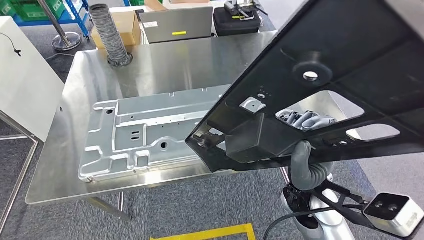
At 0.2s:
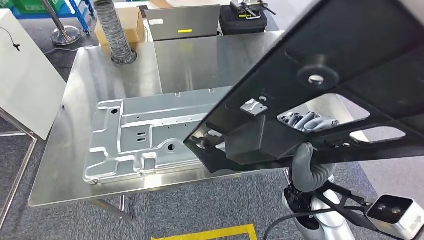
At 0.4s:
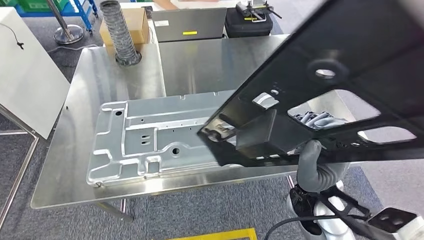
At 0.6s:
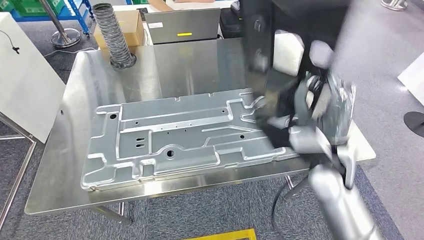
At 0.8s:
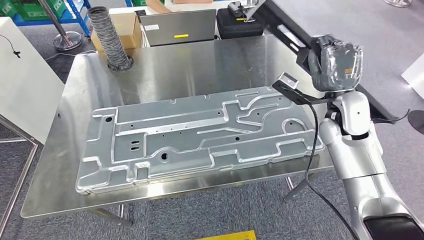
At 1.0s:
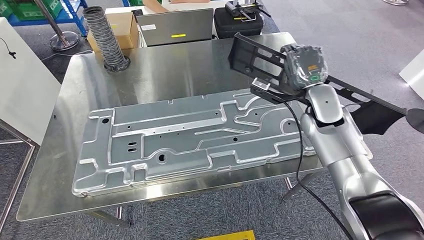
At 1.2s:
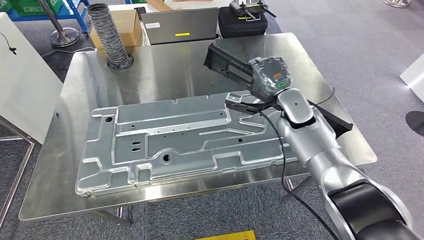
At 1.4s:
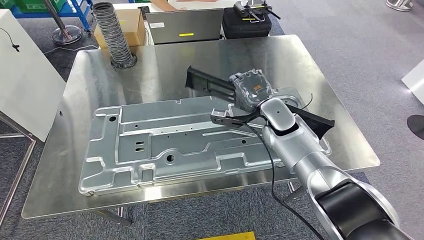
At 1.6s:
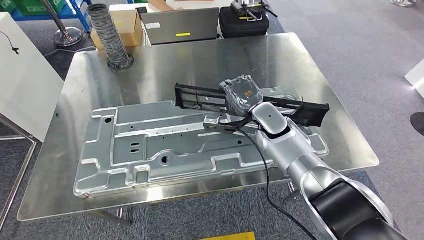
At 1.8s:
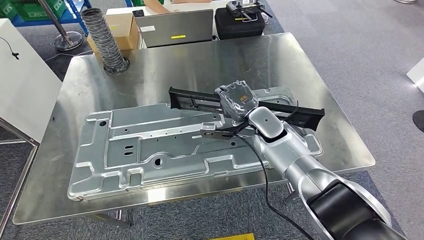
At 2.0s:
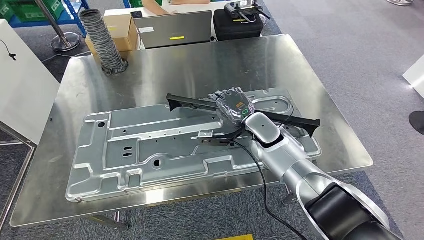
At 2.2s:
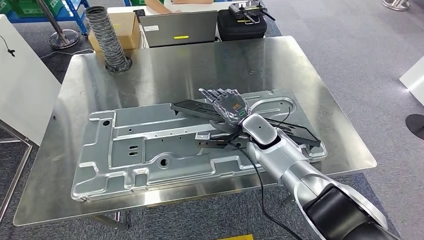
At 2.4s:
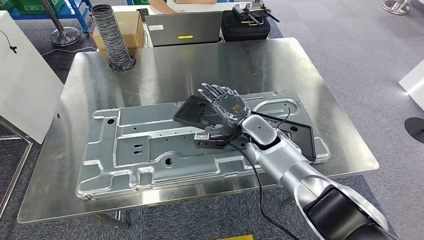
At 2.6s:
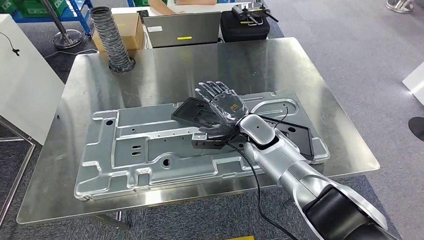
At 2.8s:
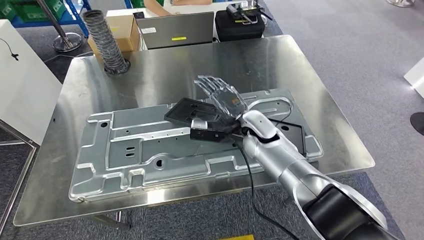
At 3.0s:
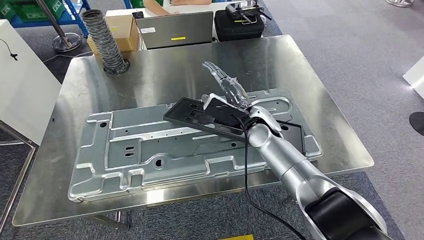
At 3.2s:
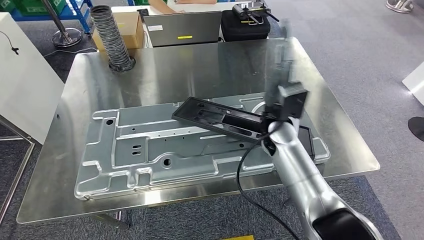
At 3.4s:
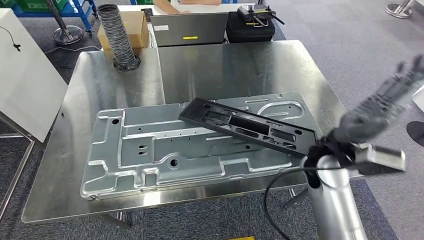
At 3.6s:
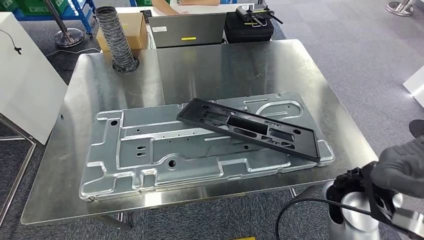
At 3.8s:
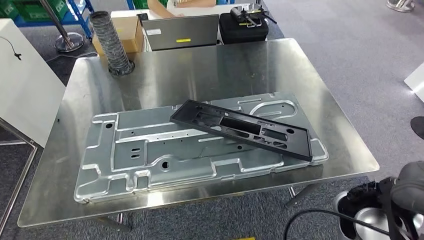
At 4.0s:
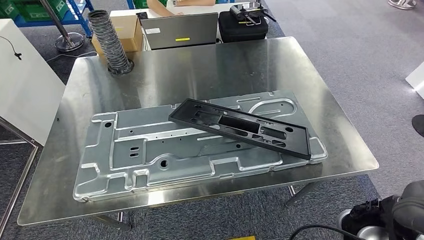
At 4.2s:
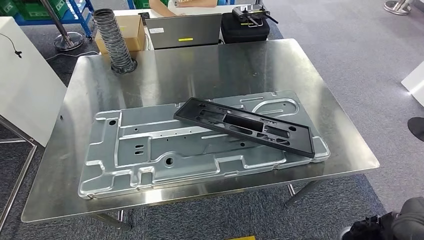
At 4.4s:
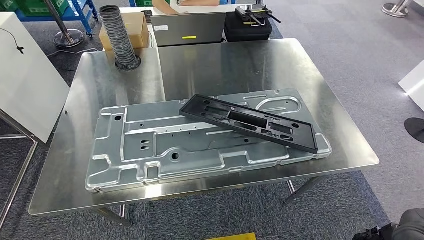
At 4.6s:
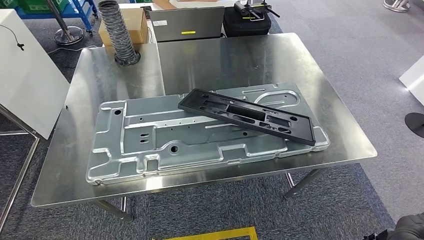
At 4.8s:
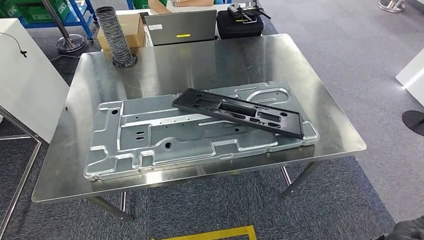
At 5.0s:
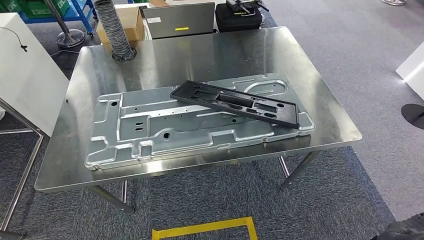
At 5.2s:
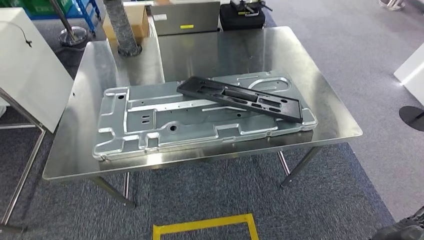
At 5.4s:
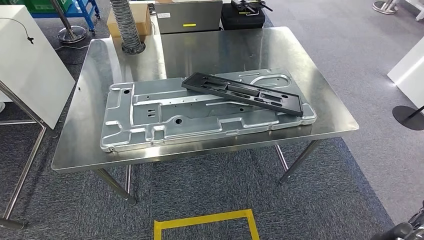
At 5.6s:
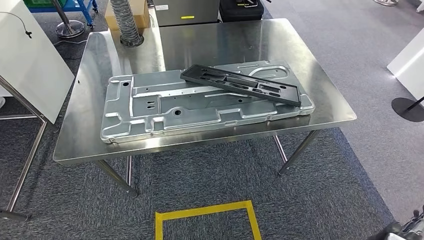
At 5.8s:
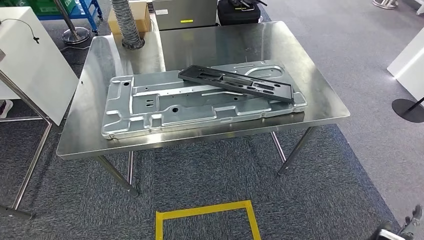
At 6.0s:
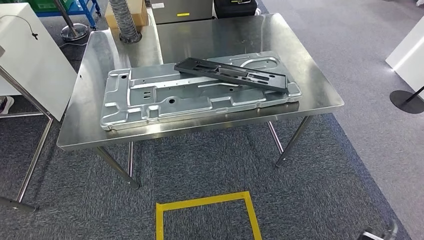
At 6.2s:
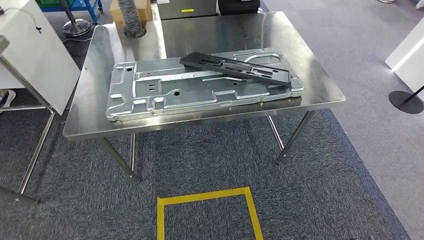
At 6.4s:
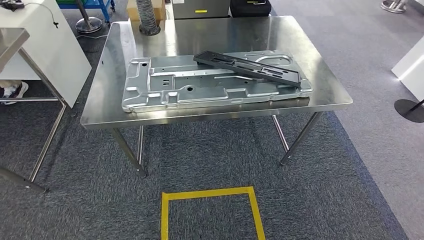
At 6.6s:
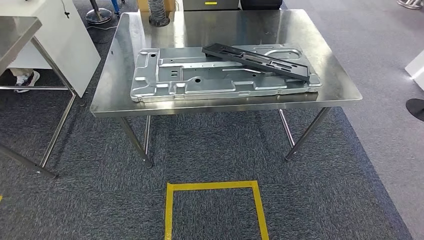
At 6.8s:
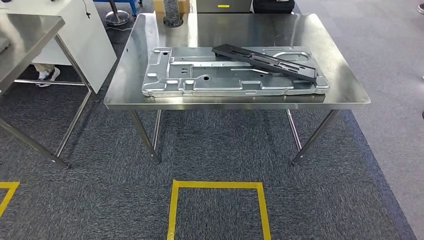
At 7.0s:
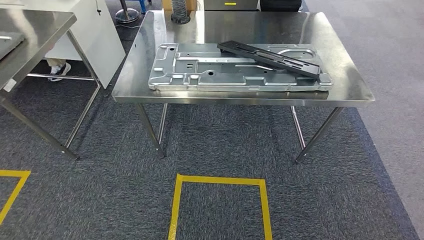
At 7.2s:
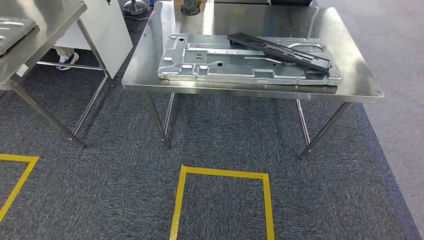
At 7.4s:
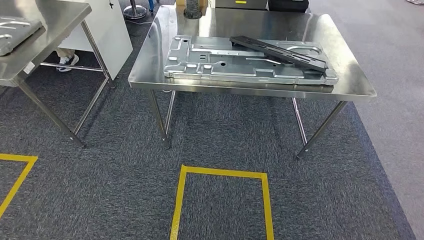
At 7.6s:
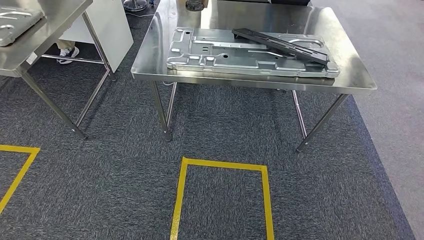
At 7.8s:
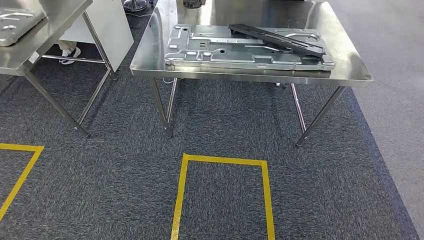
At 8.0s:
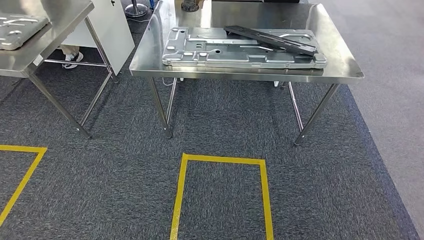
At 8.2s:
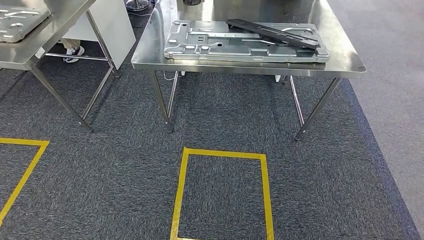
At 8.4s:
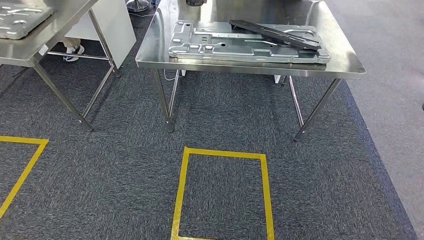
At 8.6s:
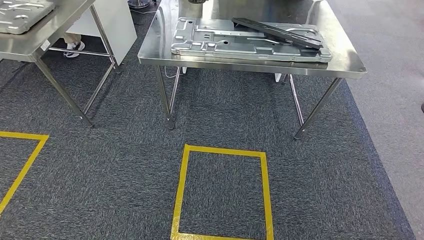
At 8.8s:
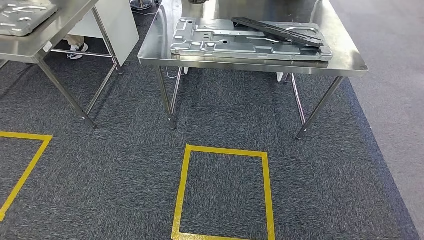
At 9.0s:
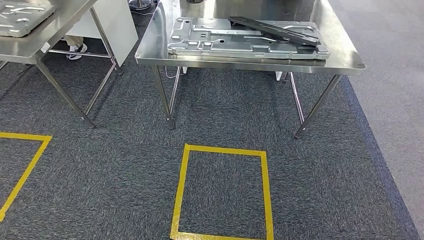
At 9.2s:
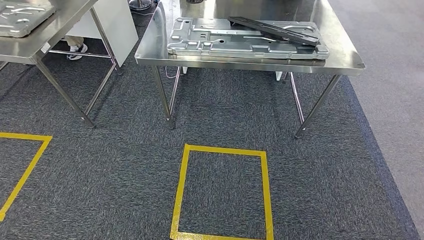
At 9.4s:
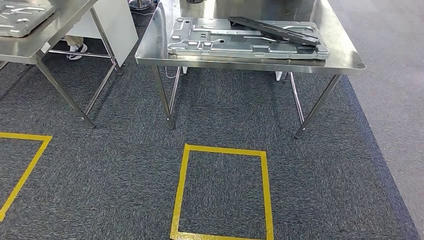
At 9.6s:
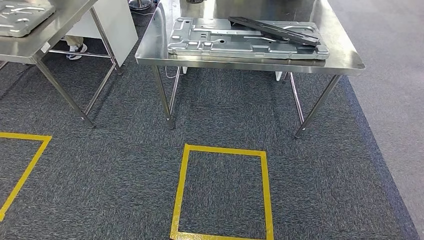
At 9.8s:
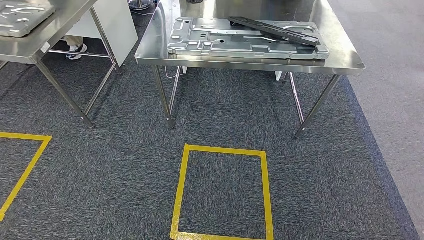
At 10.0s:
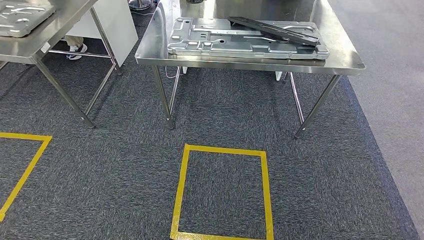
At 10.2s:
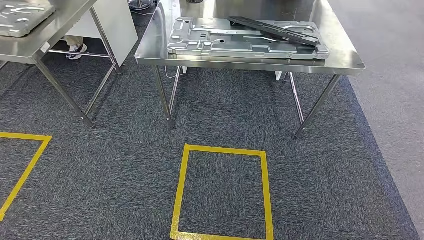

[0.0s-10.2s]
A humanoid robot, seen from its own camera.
Step, 0.0s to 5.4s: Insert the large material into the corresponding slot on the workbench.
Step, 5.6s to 10.0s: Return to the initial position at the shelf.
8.8s to 10.2s: There are only small adjustments of the hands.

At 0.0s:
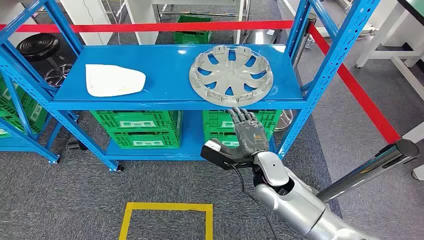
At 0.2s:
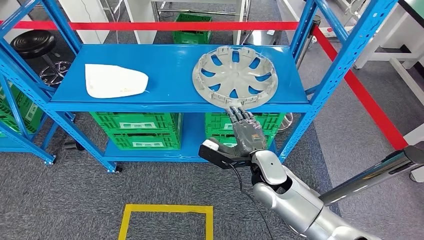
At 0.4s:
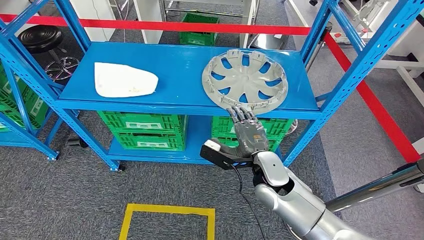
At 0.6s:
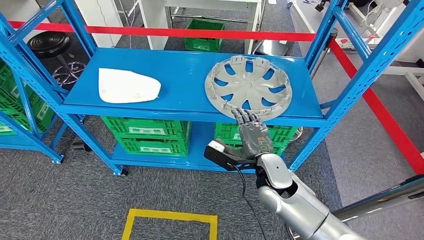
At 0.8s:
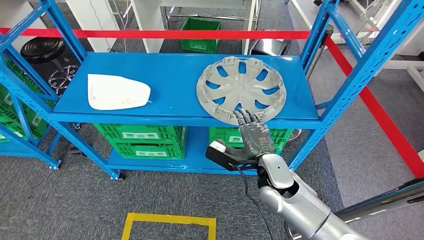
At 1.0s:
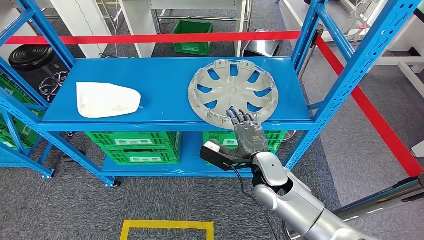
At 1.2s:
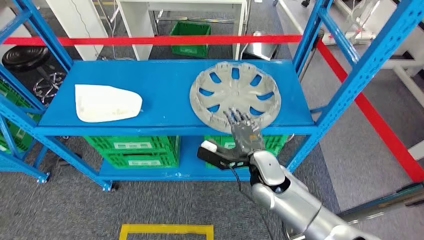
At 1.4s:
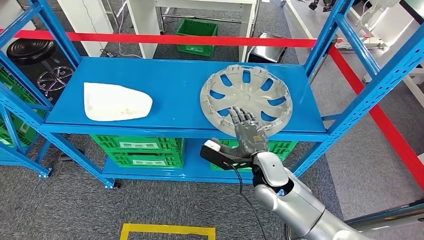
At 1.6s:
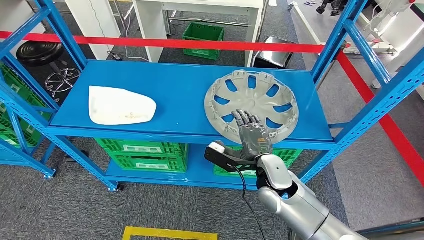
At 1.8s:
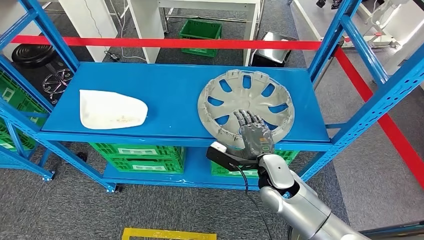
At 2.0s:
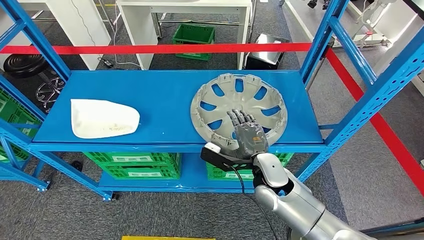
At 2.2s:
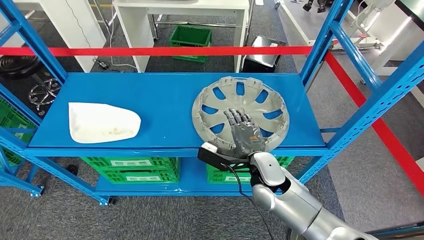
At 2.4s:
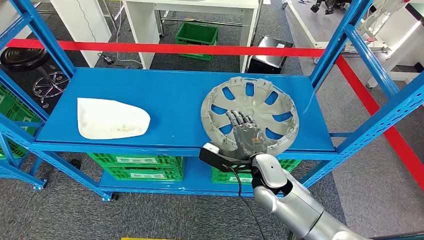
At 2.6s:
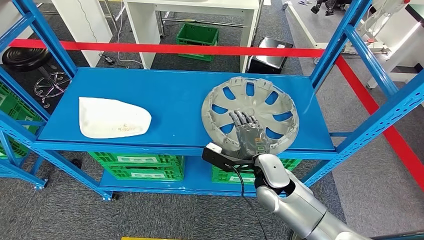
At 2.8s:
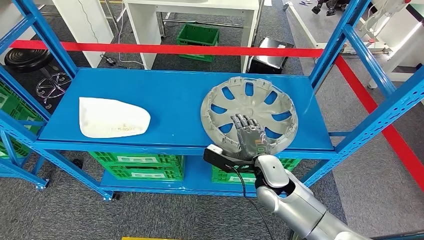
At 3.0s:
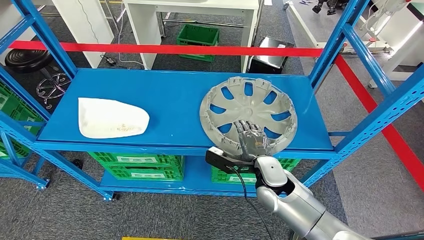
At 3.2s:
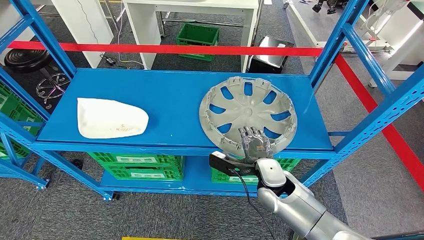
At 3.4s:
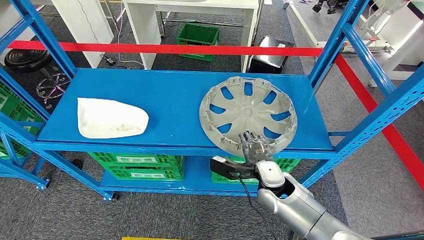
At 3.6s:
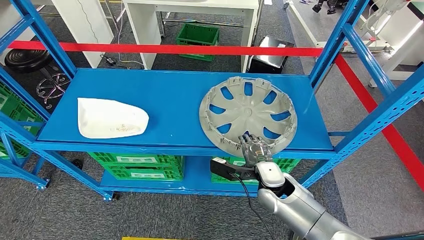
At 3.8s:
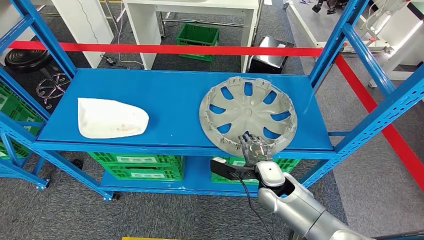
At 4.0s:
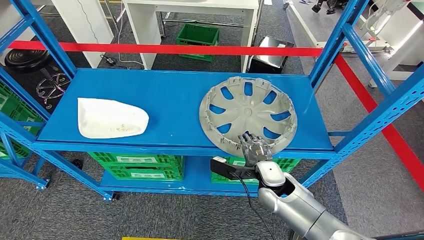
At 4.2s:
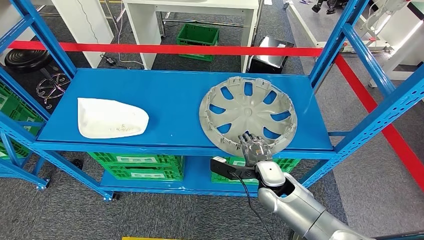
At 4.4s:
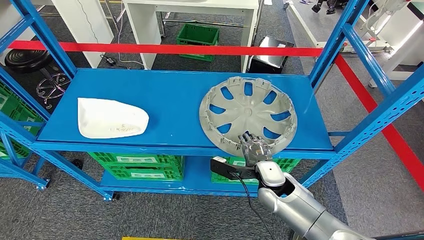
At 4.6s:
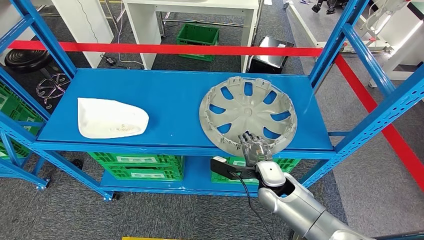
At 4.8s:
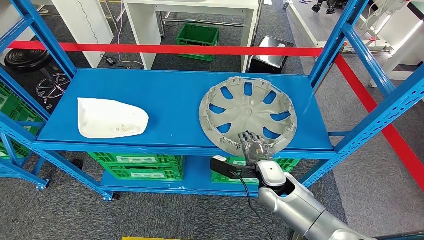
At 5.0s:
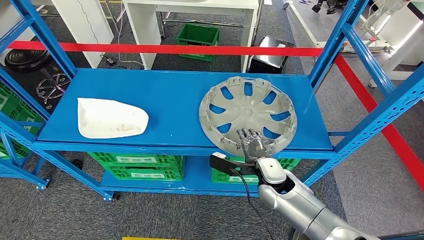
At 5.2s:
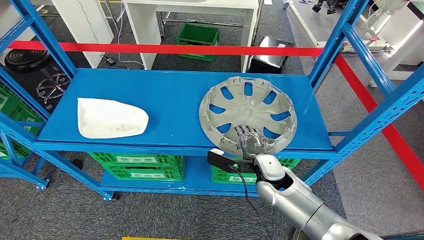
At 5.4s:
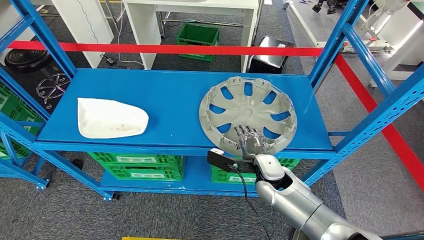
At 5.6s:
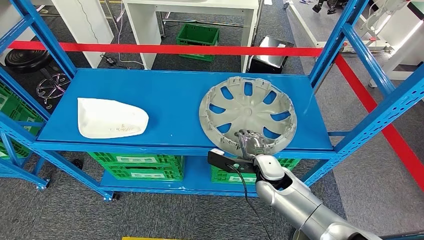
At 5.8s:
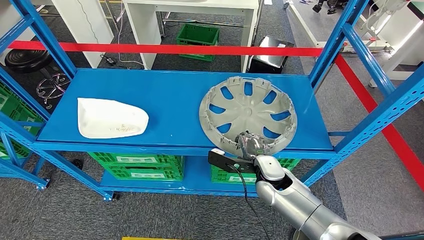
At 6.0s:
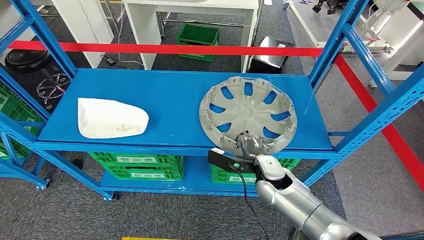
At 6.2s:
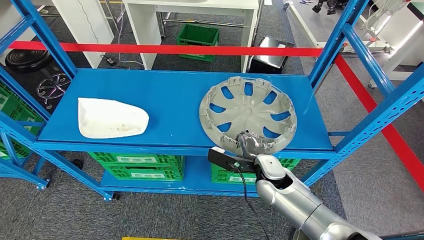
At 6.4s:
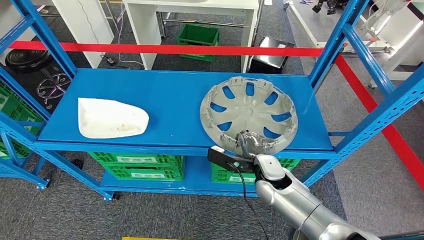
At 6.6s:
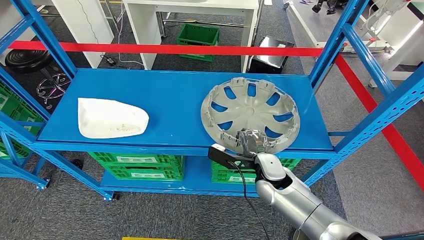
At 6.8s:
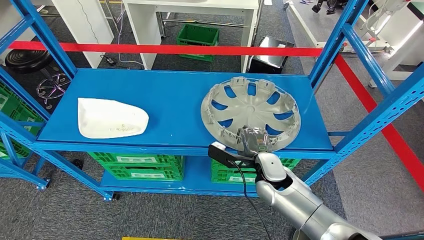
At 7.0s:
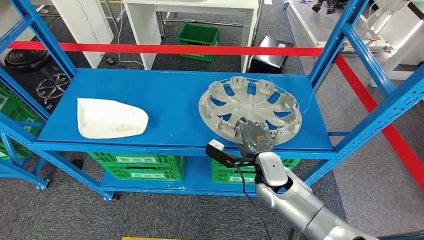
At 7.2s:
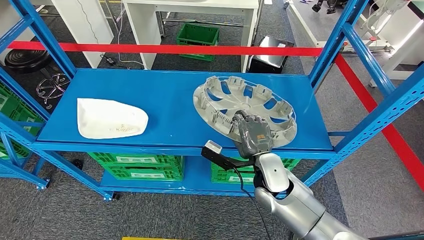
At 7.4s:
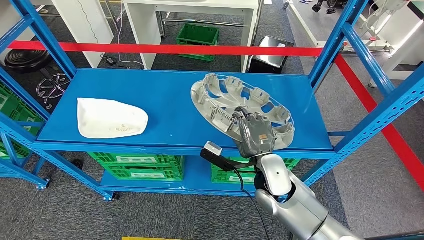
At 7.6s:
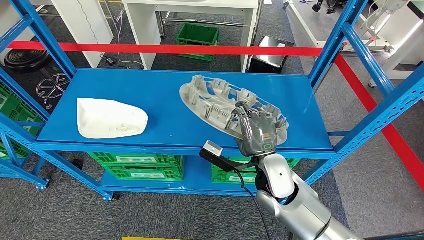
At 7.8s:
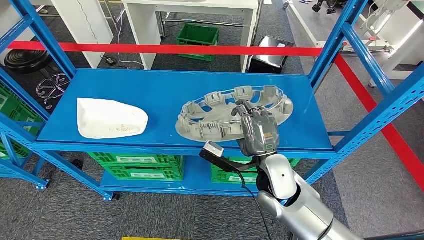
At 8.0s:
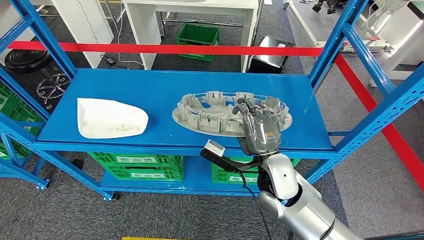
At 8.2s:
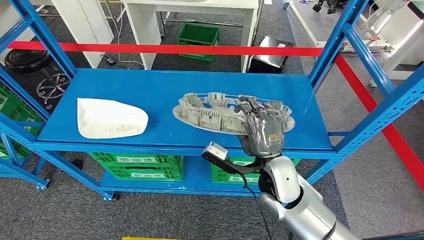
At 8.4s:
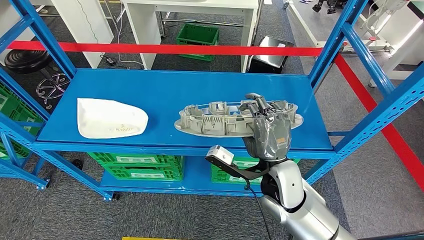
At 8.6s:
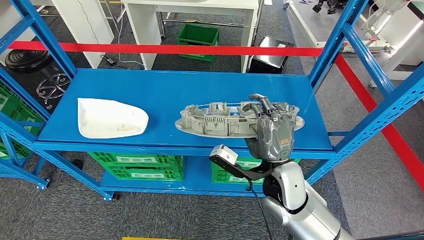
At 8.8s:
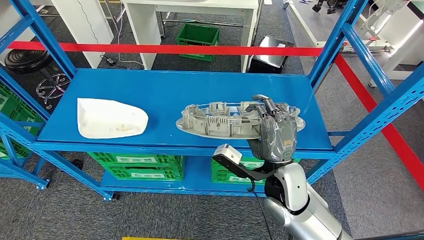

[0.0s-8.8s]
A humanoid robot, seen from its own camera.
3.0s to 5.8s: There are only small adjustments of the hands.
5.8s to 7.4s: The right hand travels upward by about 5 cm.
